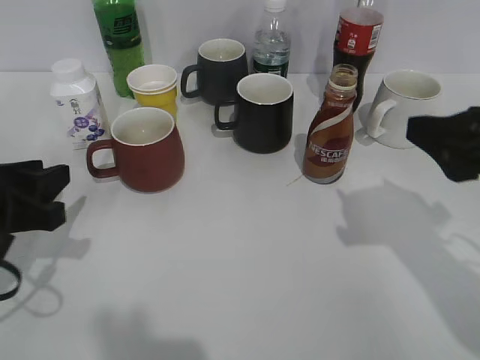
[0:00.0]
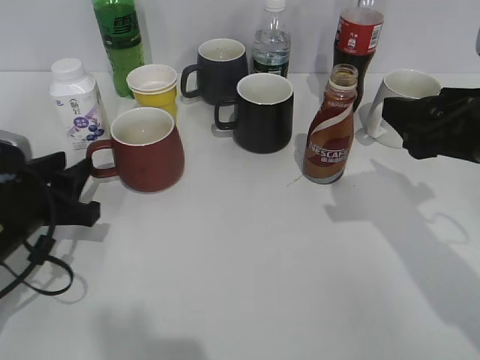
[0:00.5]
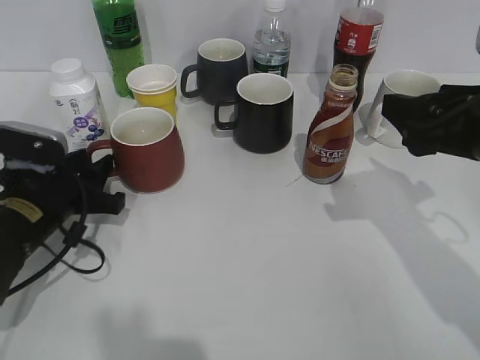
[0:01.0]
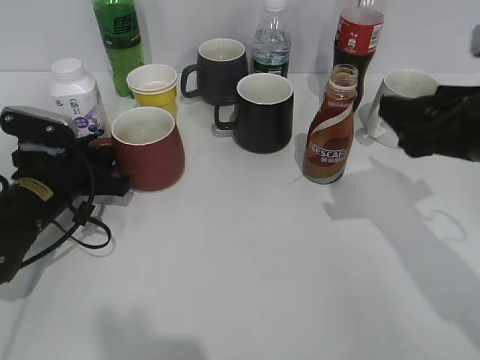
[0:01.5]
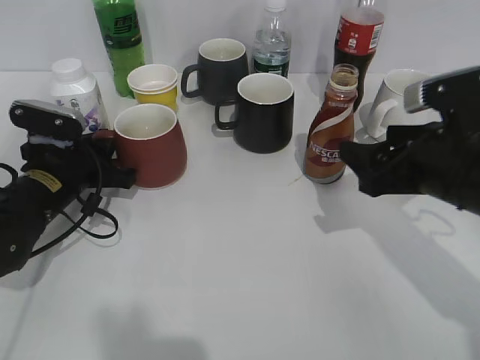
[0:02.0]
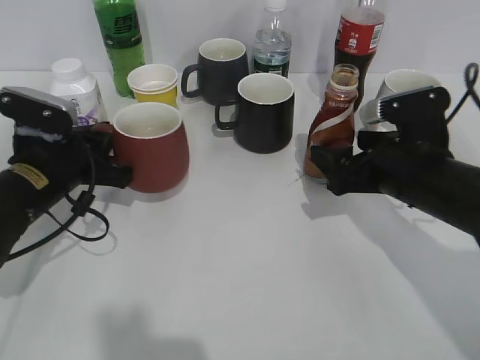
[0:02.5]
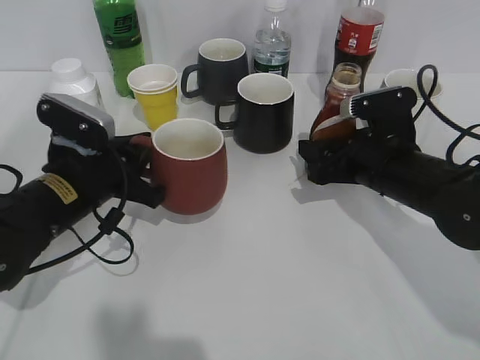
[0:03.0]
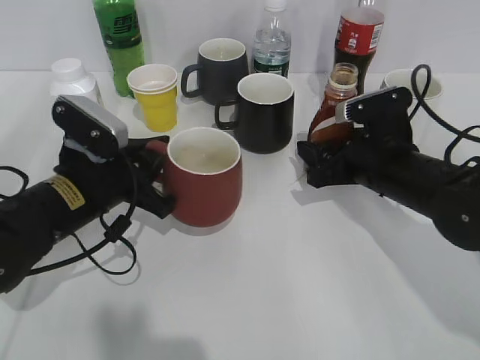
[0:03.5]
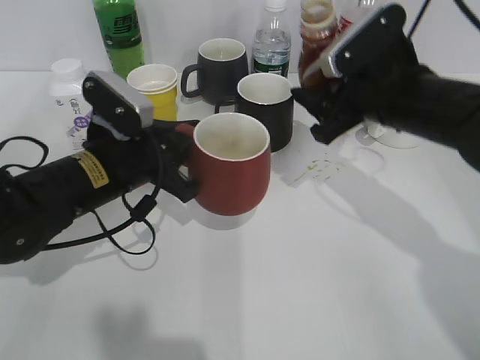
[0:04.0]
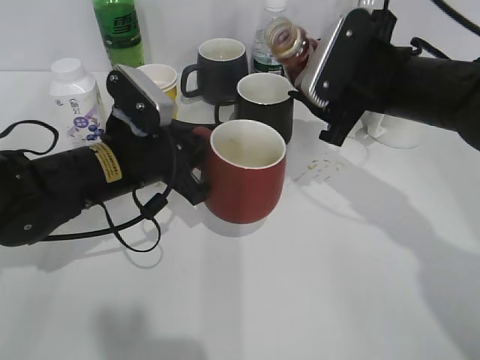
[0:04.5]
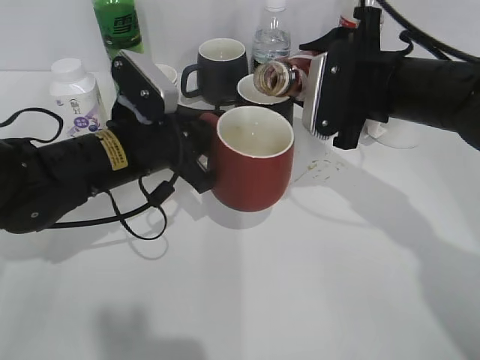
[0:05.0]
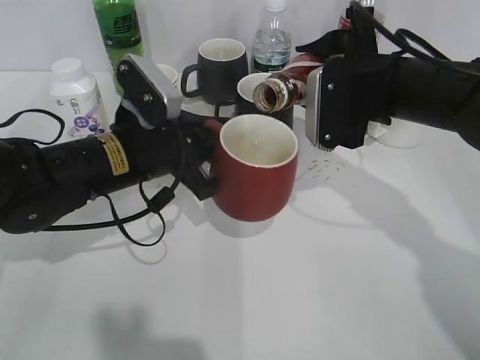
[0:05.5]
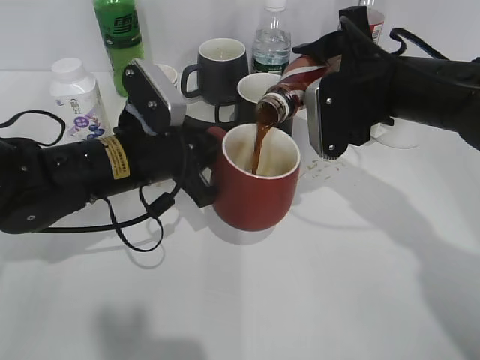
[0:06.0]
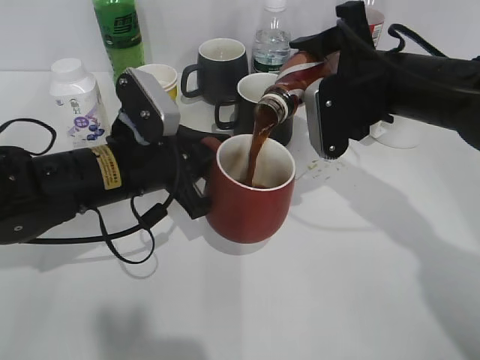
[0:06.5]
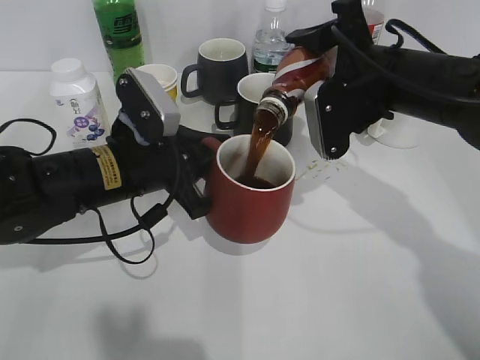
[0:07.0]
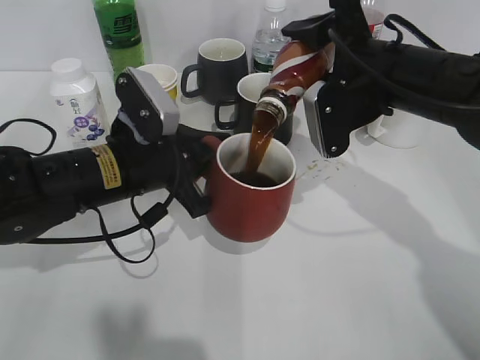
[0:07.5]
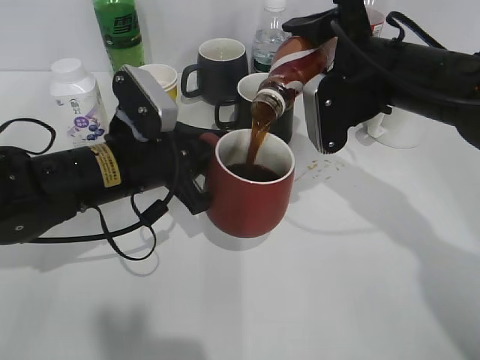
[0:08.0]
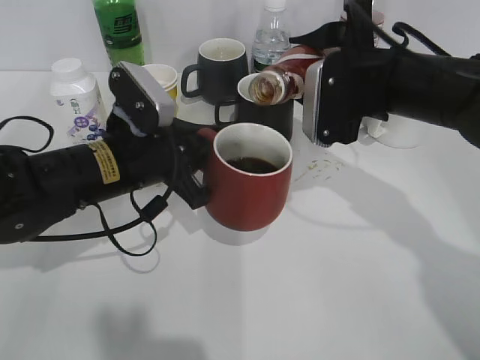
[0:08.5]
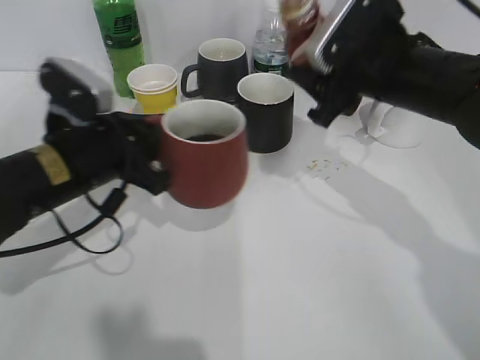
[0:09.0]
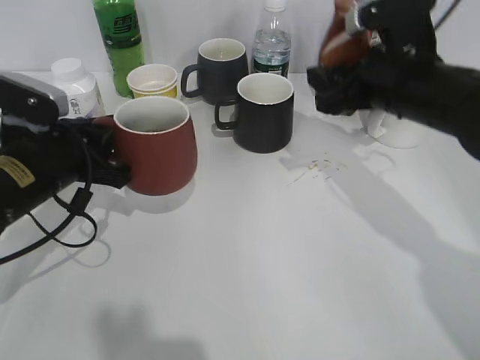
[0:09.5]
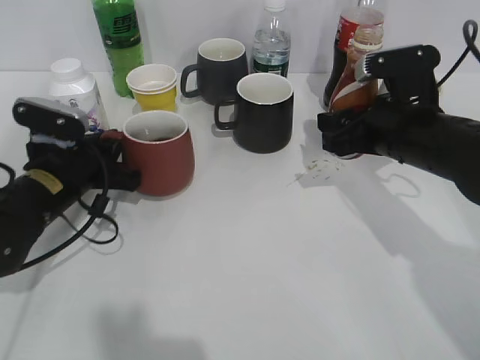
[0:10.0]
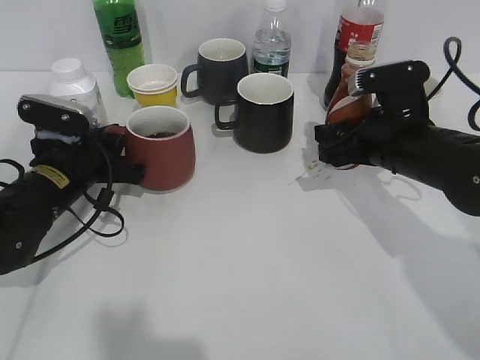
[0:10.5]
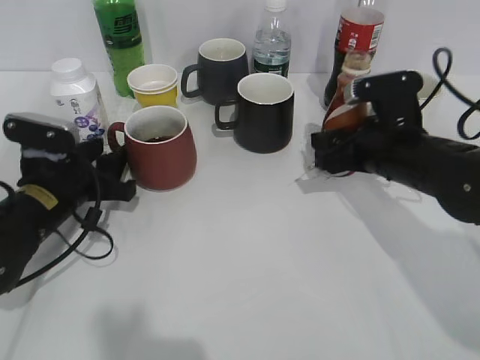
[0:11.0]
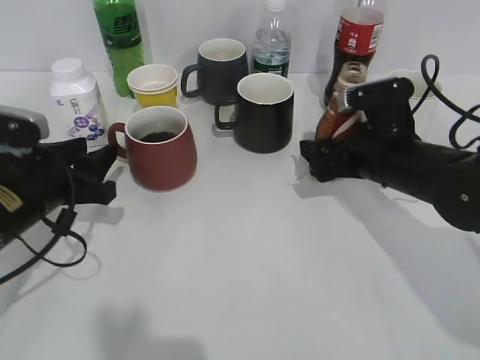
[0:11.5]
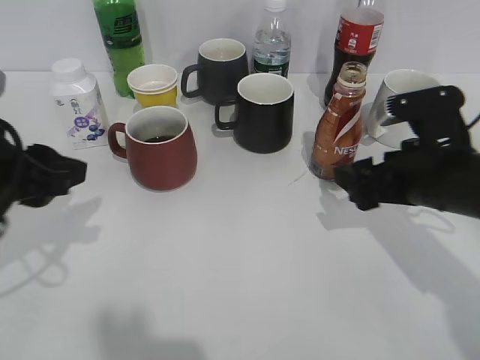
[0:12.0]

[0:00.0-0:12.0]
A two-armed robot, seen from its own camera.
Step, 0:00.0 to 0:02.0: Grasp the red cup with left gripper.
Step, 0:02.5 to 0:03.0: Grasp the bottle with coffee with right gripper.
Step, 0:03.5 to 0:08.5: Pour the coffee from bottle to cup with right gripper.
Step, 0:09.0 to 0:09.5: Place the red cup on the table with left gripper.
Step, 0:10.0 to 0:12.0: Place the coffee bottle on the table with right gripper.
0:00.0 to 0:02.0: The left gripper travels forward and downward by about 15 cm, and closes up, while the right gripper moves downward, roughly 10 cm.
0:02.0 to 0:04.0: The right gripper moves forward, roughly 10 cm, and moves some 5 cm downward and comes back; the left gripper moves to the right, approximately 10 cm.
0:06.0 to 0:08.0: There are only small adjustments of the grippers.
0:08.0 to 0:10.0: The right gripper heads downward, covering about 5 cm, while the left gripper goes approximately 10 cm to the left.
0:10.0 to 0:12.0: The left gripper goes some 15 cm upward and backward, and opens up. The right gripper shifts some 5 cm backward, and opens its fingers.

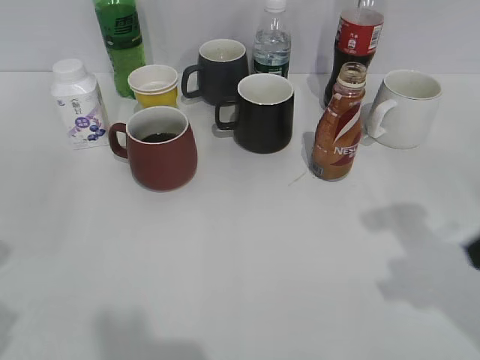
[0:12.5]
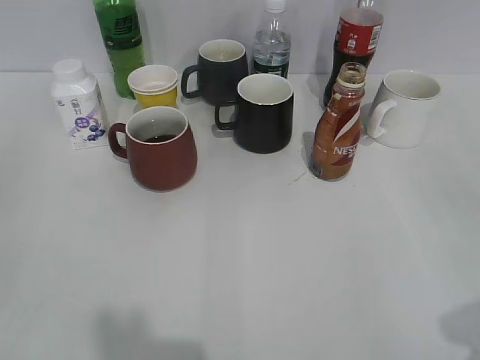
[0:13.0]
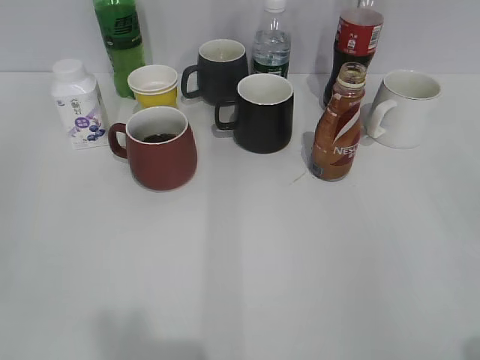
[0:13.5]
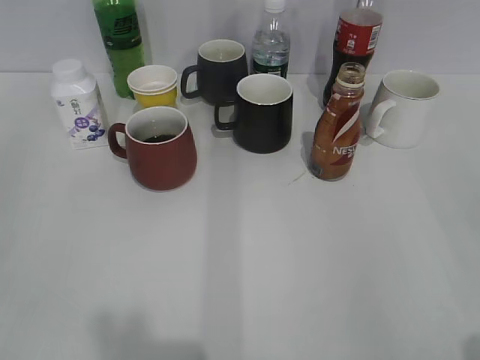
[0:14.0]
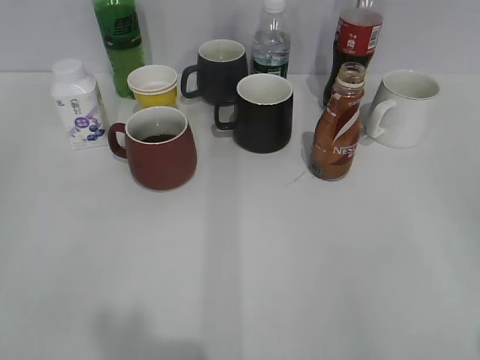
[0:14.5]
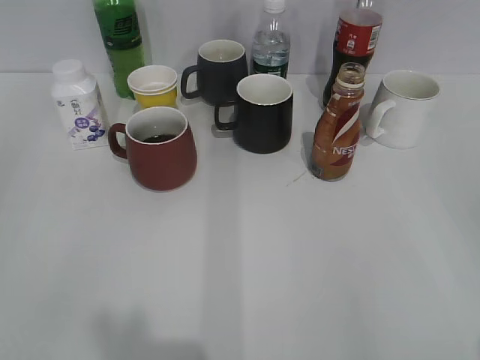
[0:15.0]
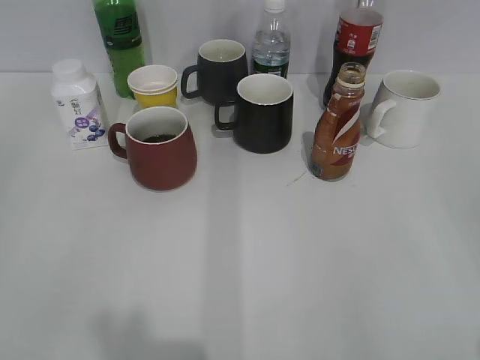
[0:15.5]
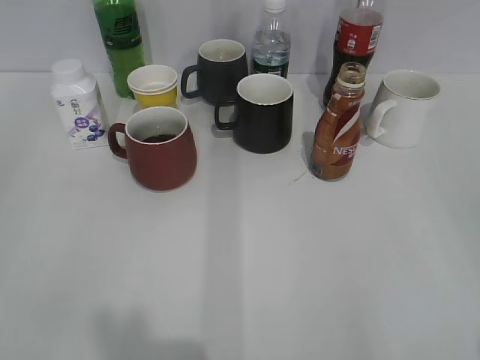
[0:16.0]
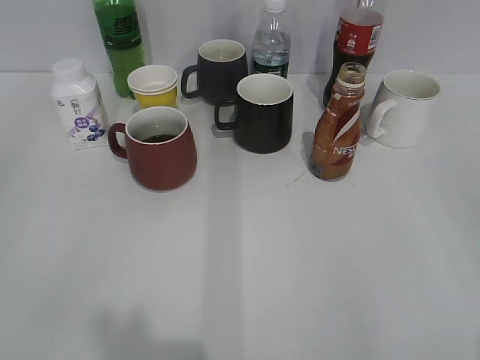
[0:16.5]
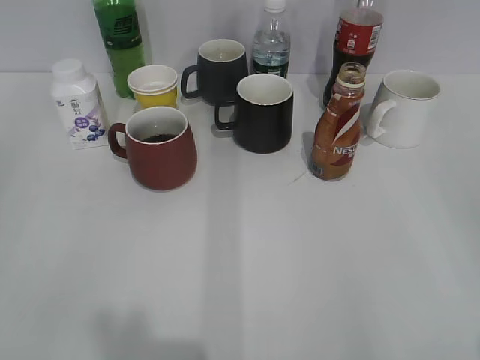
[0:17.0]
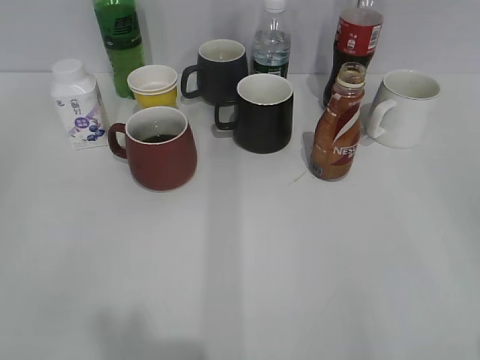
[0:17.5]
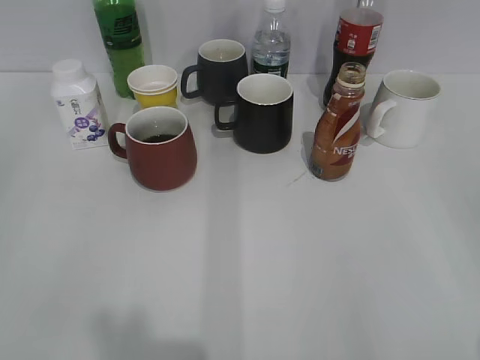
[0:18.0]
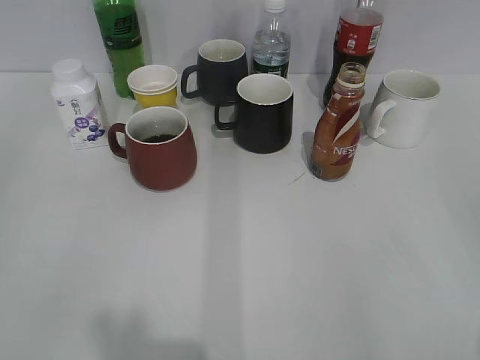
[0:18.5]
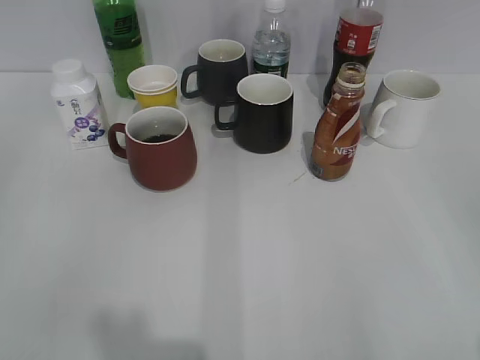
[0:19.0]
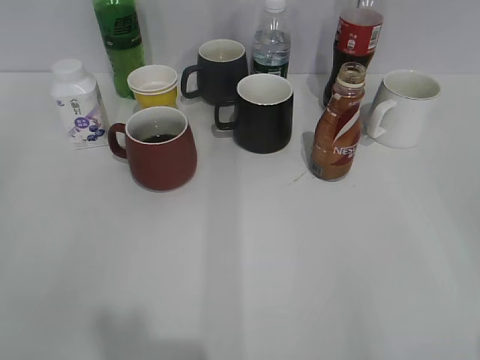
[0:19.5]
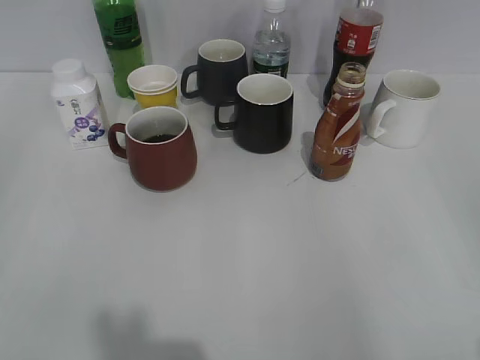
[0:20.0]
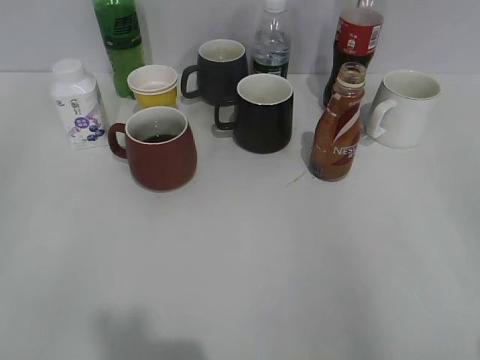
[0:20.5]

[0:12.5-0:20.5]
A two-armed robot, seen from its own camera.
0:12.5 to 0:14.5: The left gripper goes some 10 cm backward and to the left; the right gripper is displaced backward and to the right by some 15 cm.
0:16.5 to 0:20.5: Neither gripper changes place.
